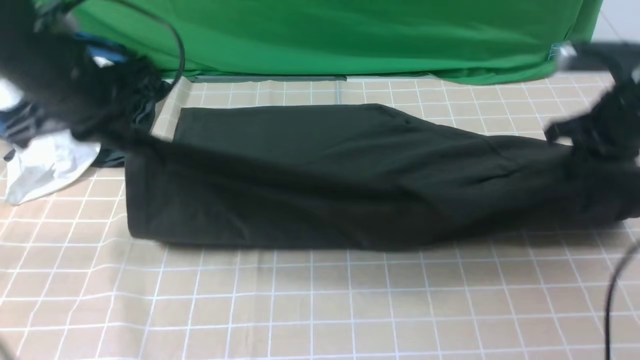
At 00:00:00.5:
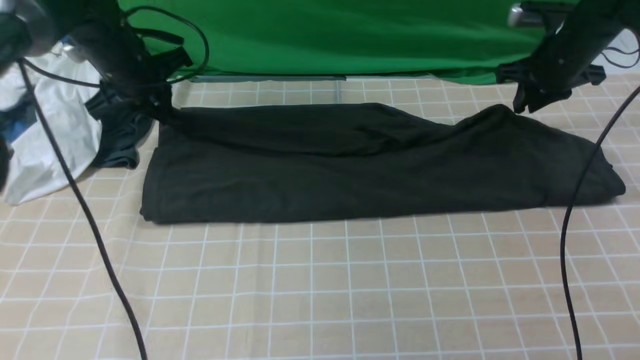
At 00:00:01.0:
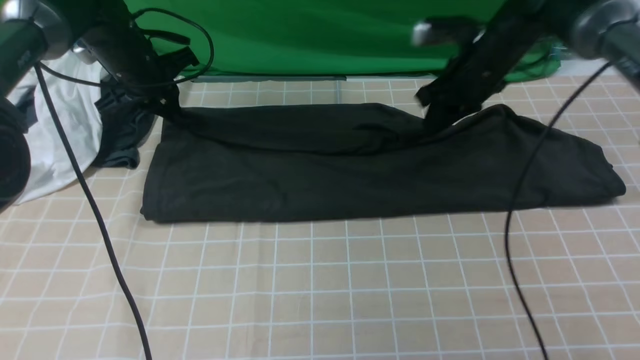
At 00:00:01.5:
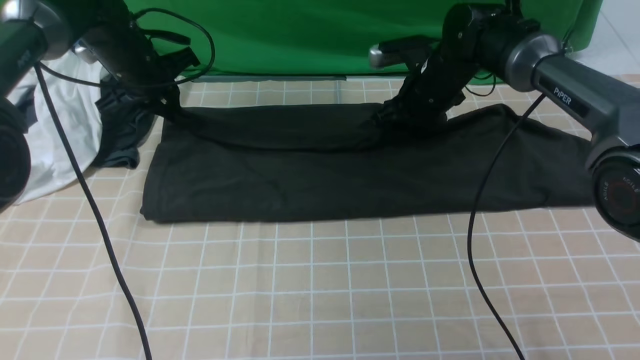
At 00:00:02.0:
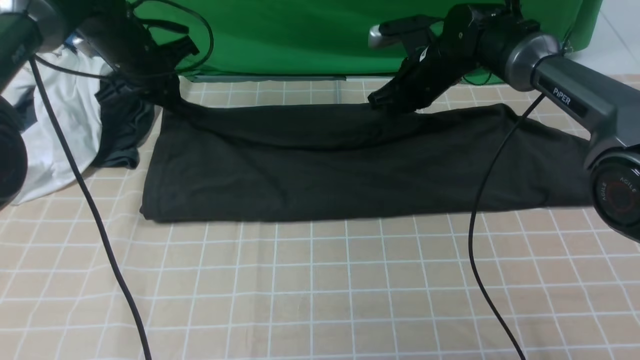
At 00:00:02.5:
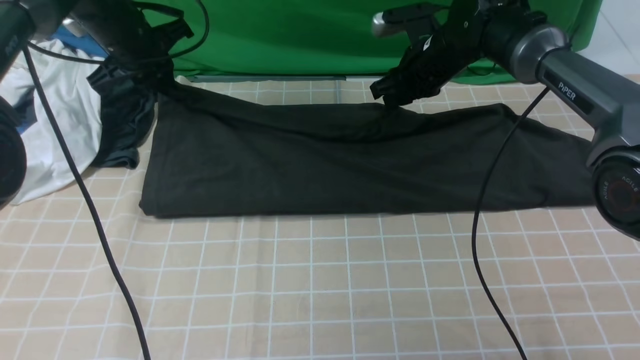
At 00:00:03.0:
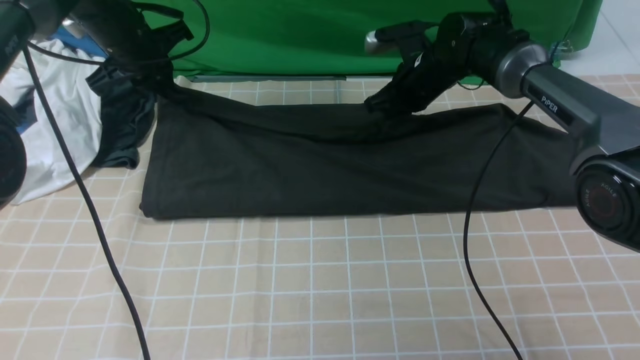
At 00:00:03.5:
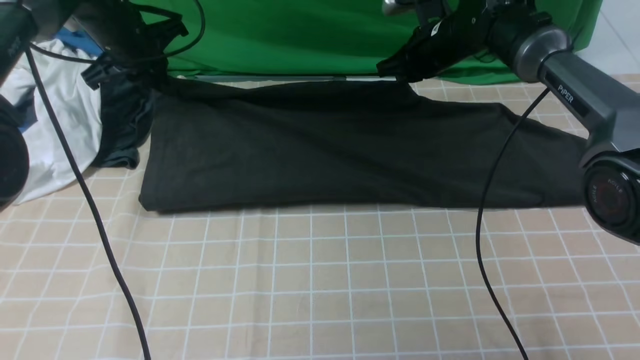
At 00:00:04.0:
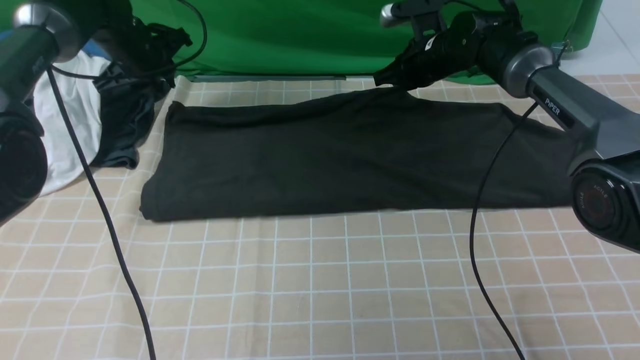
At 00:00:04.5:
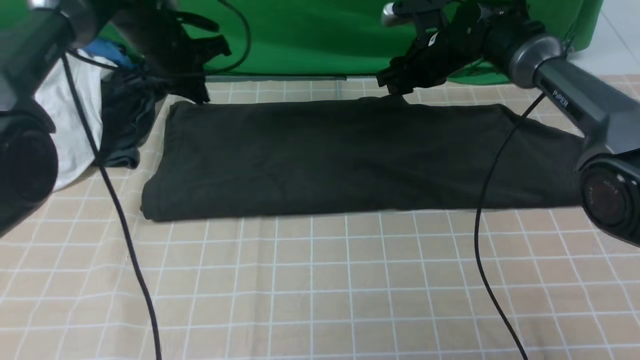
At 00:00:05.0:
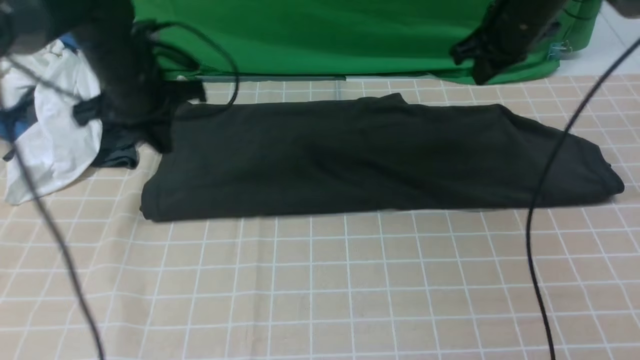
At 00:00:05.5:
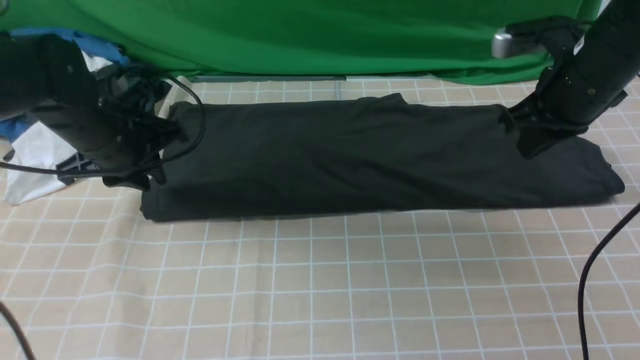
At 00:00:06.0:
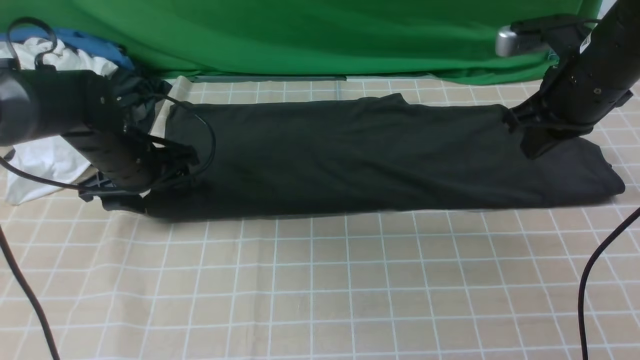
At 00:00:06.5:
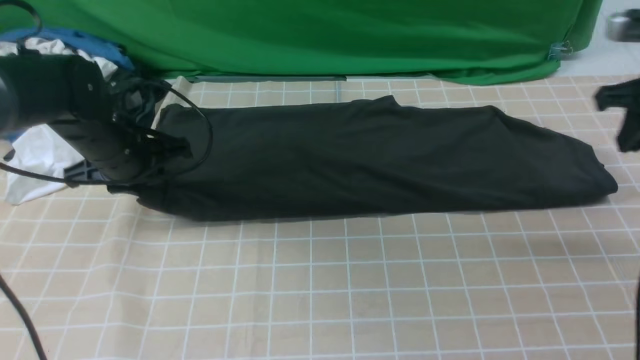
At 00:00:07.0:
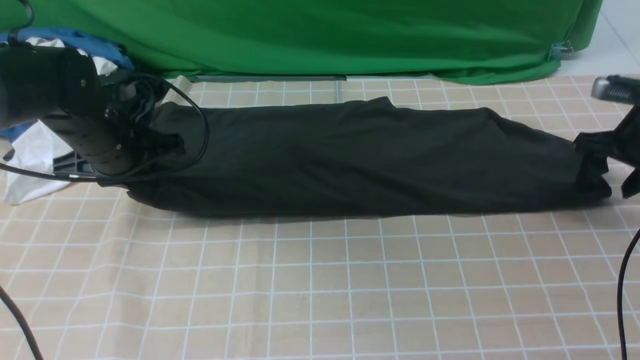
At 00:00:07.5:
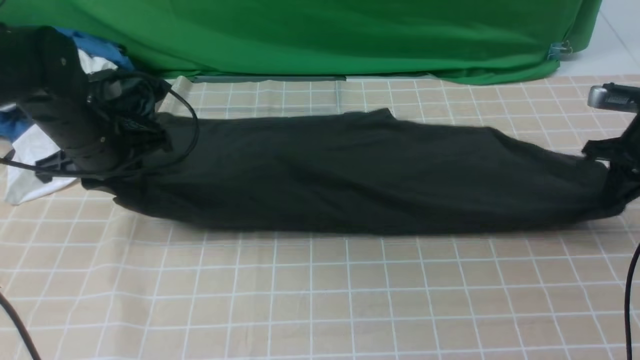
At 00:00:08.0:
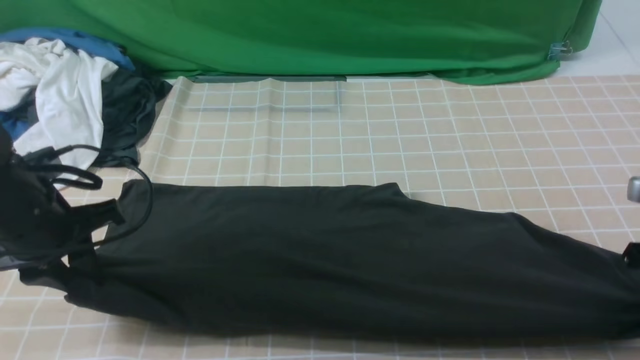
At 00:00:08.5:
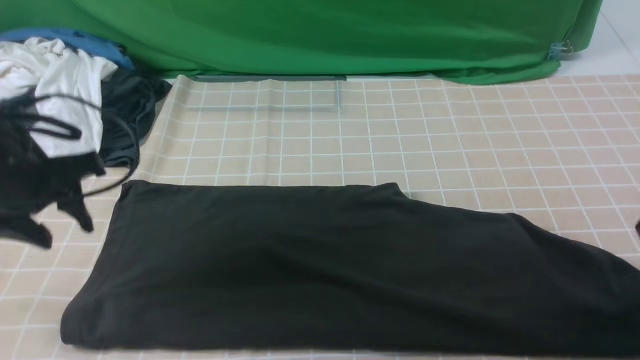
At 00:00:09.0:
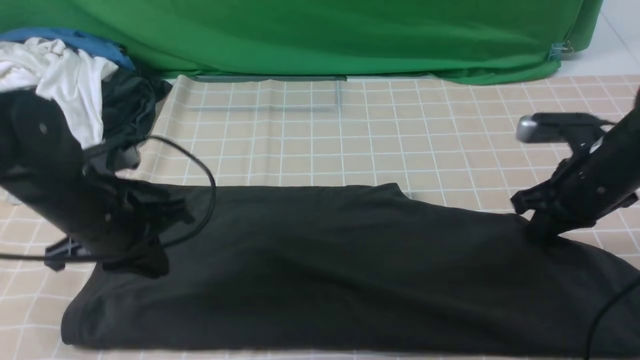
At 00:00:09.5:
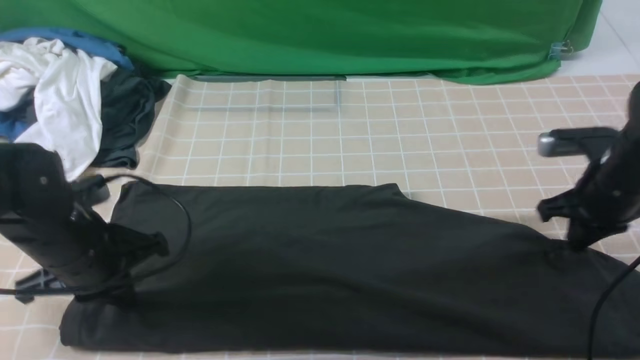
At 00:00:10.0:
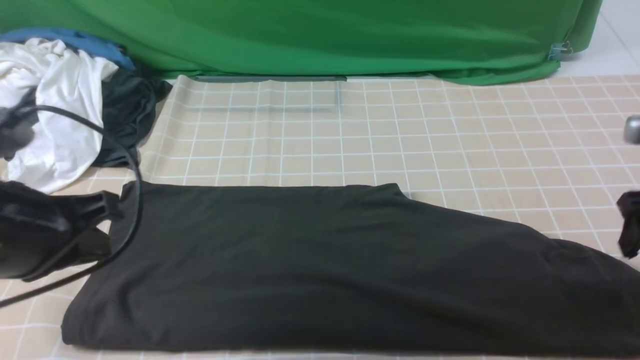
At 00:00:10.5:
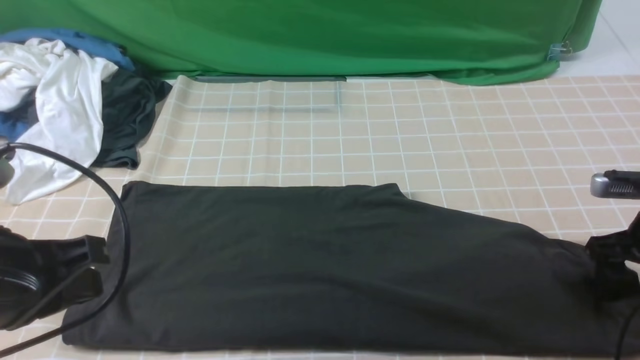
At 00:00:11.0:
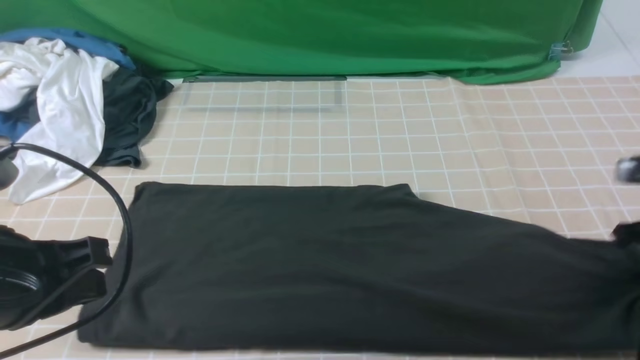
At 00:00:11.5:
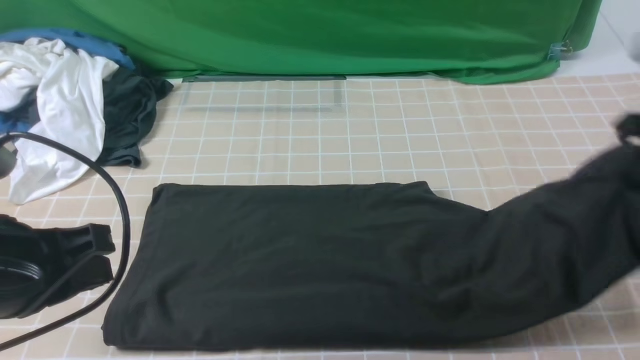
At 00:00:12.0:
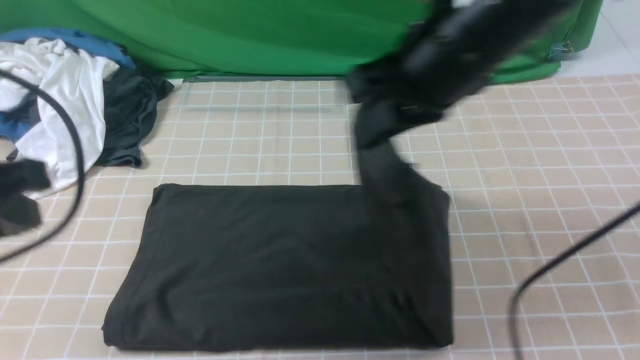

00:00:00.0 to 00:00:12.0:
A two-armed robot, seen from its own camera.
Step, 00:00:00.0 to 00:00:04.0: use both arms to drag the lower edge of the fabric forward and fold it over the upper edge.
Step, 00:00:04.5 to 00:00:10.5: use the right arm to clamp the right edge of the fabric.
00:00:00.0 to 00:00:02.0: The left gripper heads forward and downward, covering roughly 15 cm, while the right gripper travels forward, to the left and downward by roughly 25 cm, and opens and closes again.
00:00:02.0 to 00:00:04.0: The right gripper opens, then closes again. Meanwhile the left gripper opens up.
00:00:04.0 to 00:00:06.0: The right gripper shifts some 25 cm backward, upward and to the right, while the left gripper heads backward, covering about 15 cm, and opens its fingers.
00:00:06.0 to 00:00:08.0: The left gripper moves backward and upward, some 10 cm, and closes its fingers, while the right gripper shifts some 20 cm to the right, backward and downward, and opens and closes again.
00:00:08.0 to 00:00:10.0: The left gripper shifts roughly 10 cm backward and upward, and closes its fingers, while the right gripper goes to the left and returns, some 10 cm each way, and opens.
00:00:10.0 to 00:00:12.0: The right gripper moves to the left and upward, about 30 cm, and closes its fingers; the left gripper moves upward, roughly 5 cm.

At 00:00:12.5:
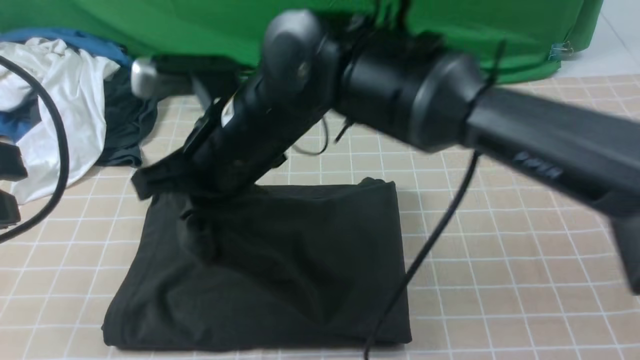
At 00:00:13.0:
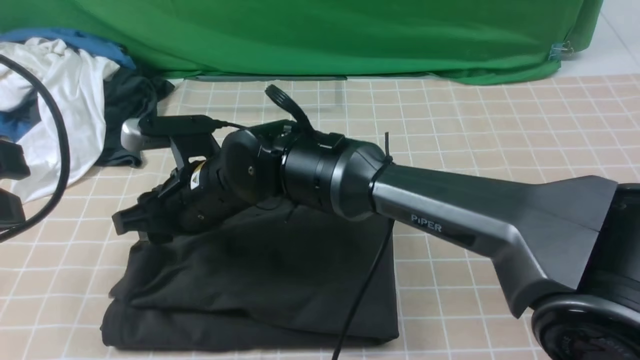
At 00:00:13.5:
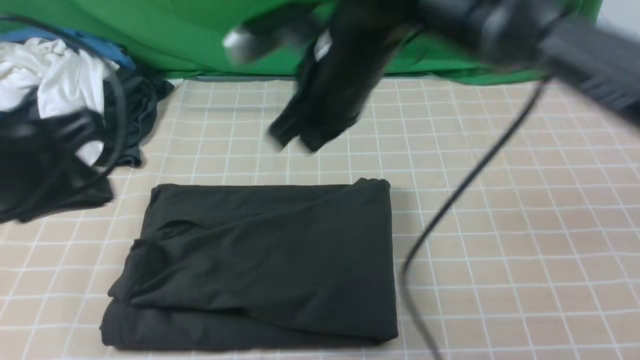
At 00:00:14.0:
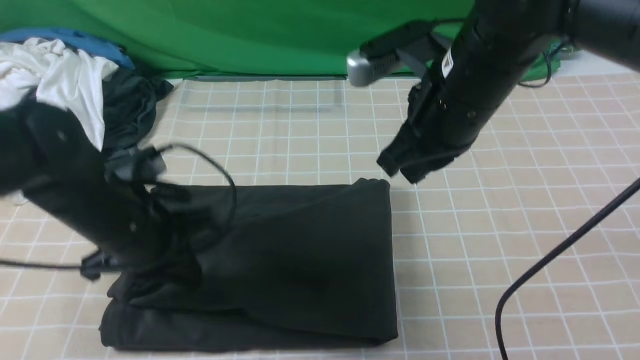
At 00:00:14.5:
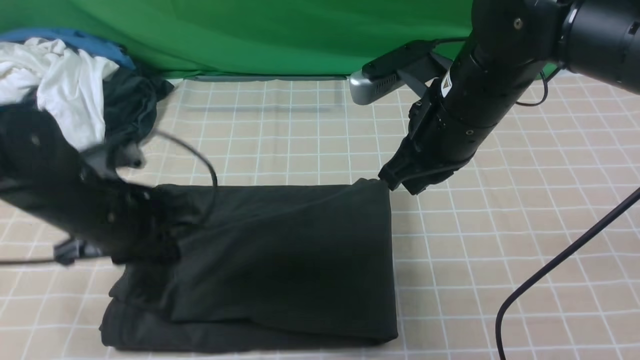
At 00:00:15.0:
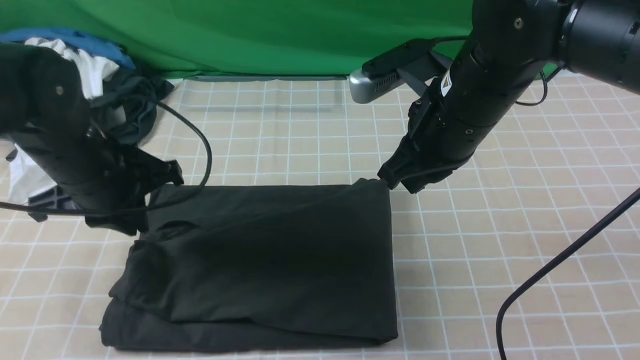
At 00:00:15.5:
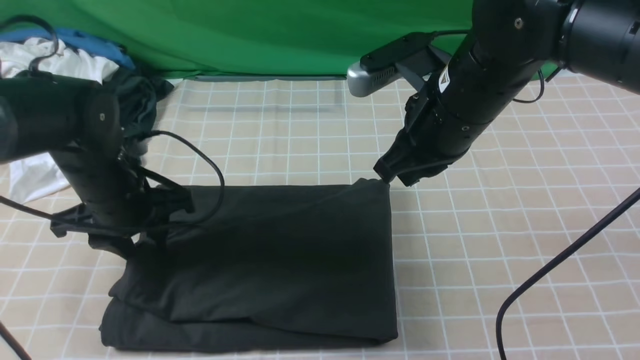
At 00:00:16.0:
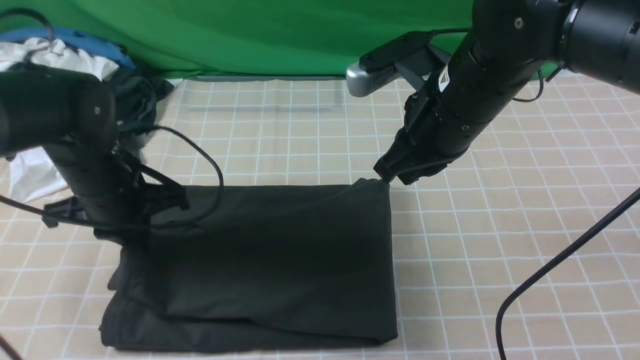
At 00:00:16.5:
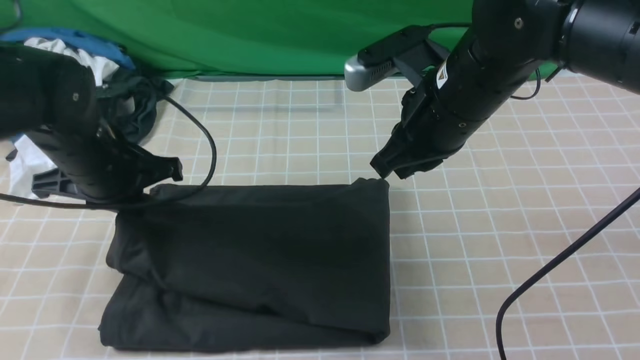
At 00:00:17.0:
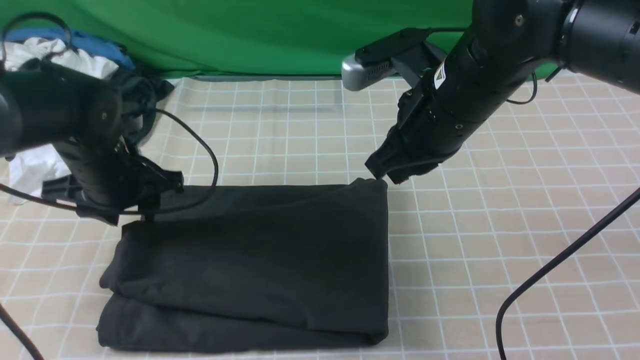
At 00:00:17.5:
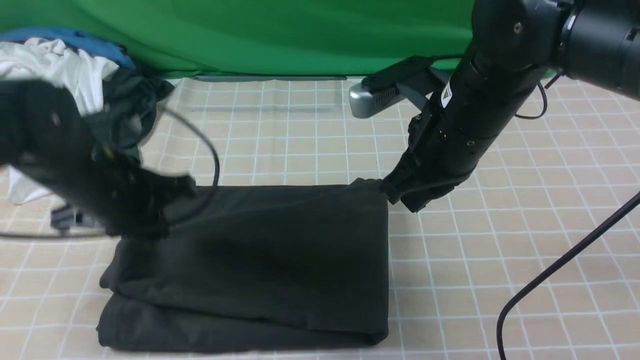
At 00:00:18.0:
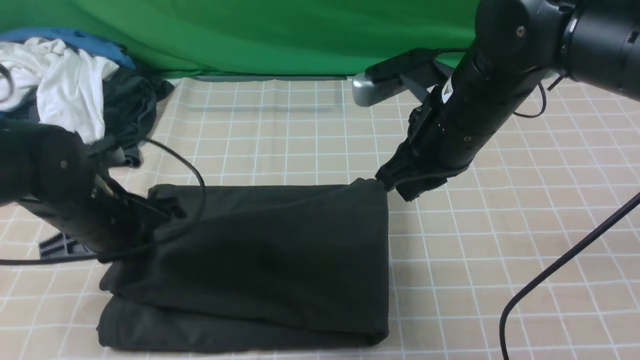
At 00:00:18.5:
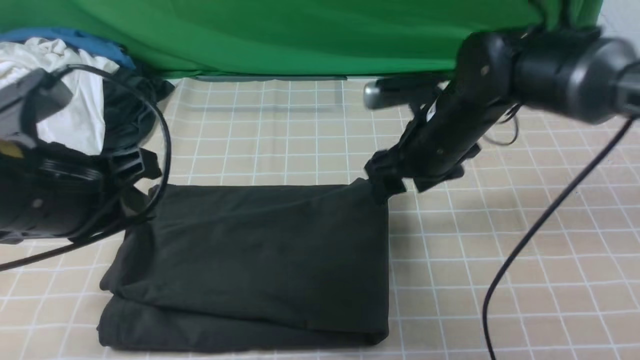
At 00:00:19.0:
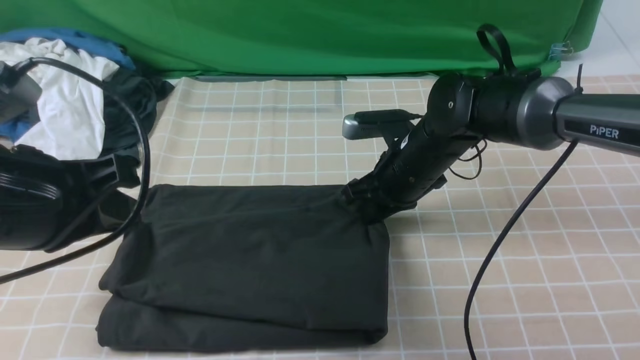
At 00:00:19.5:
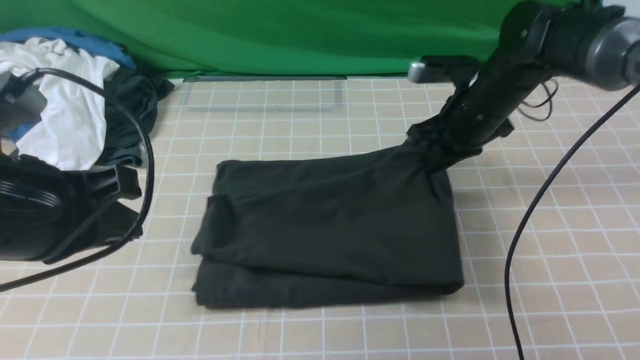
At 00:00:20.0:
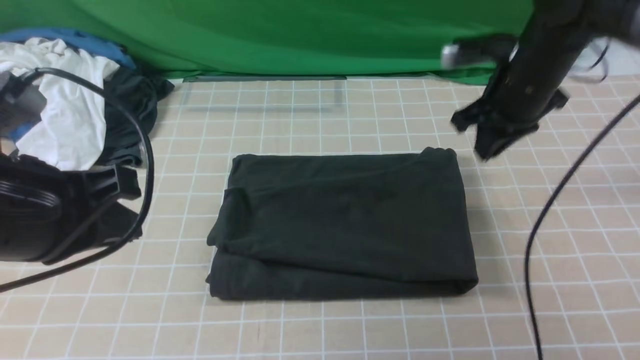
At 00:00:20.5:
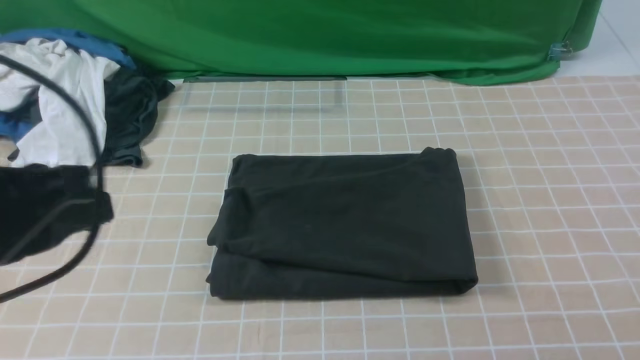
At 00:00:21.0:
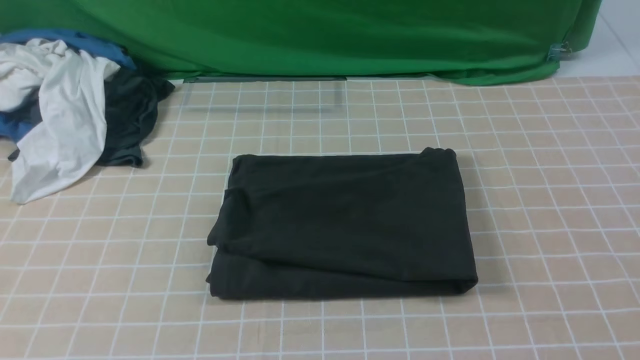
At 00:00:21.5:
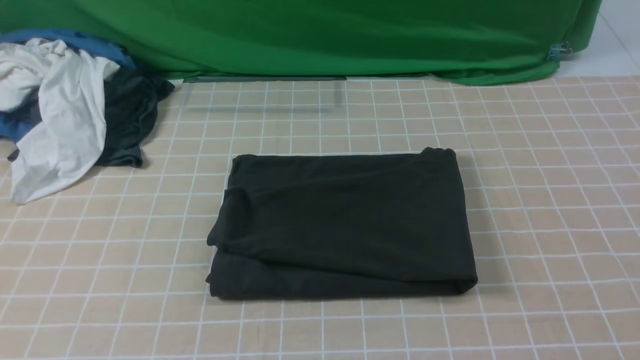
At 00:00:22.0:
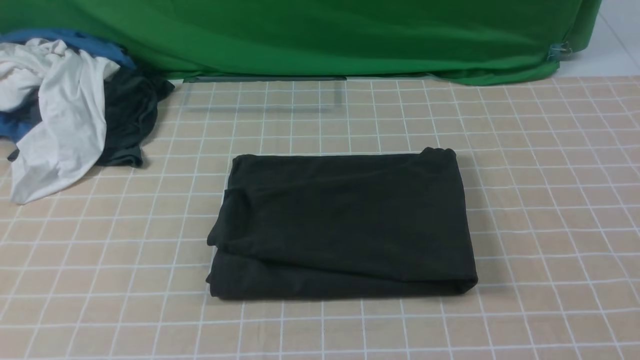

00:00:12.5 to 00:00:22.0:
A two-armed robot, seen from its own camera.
00:00:12.5 to 00:00:14.5: The left gripper travels downward and forward by roughly 20 cm. Meanwhile the right gripper travels to the right by approximately 20 cm, and opens, then closes again.
00:00:14.5 to 00:00:16.5: The left gripper heads forward, covering about 5 cm, and opens, then closes once more.
00:00:16.5 to 00:00:18.0: The right gripper opens up, while the left gripper goes roughly 5 cm backward, and opens, then closes again.
00:00:18.0 to 00:00:20.0: The left gripper goes roughly 15 cm upward and backward. The right gripper is displaced to the right and forward by some 10 cm, moves roughly 10 cm downward and comes back, and opens, then closes once more.
00:00:20.0 to 00:00:22.0: The right gripper moves backward, roughly 40 cm; the left gripper travels backward by about 15 cm.
